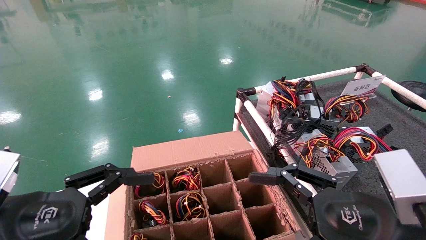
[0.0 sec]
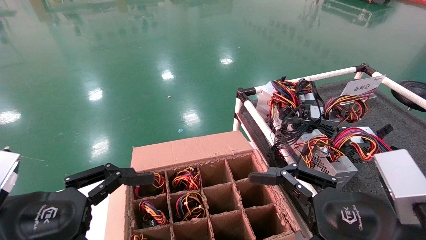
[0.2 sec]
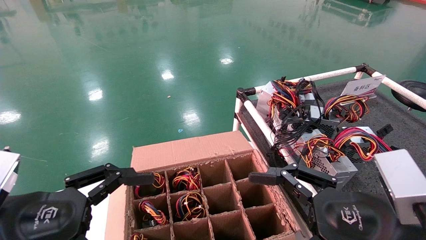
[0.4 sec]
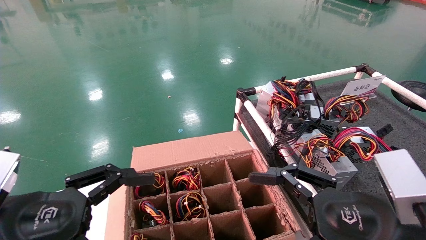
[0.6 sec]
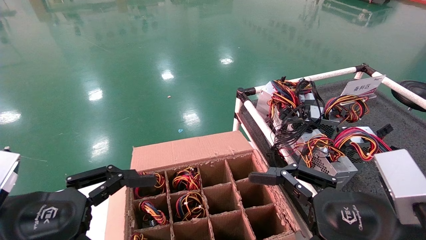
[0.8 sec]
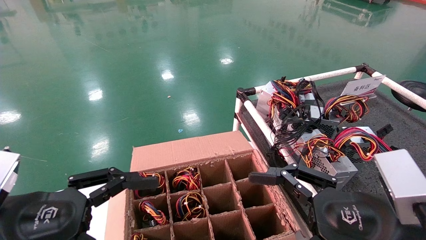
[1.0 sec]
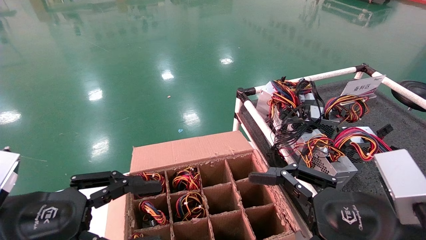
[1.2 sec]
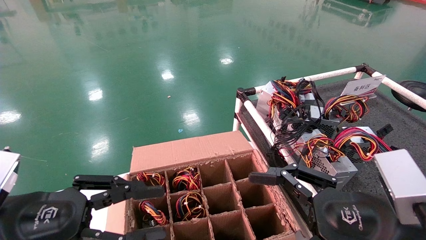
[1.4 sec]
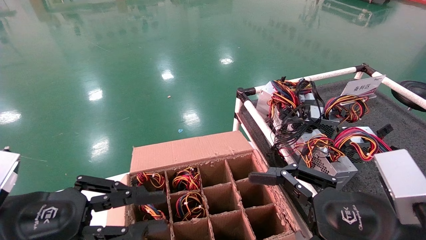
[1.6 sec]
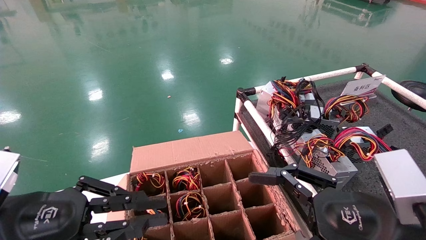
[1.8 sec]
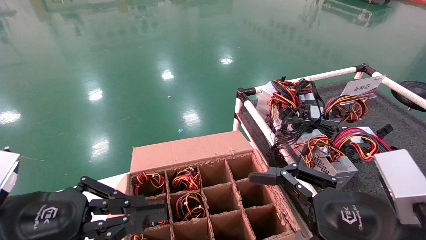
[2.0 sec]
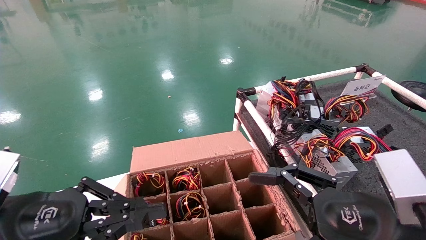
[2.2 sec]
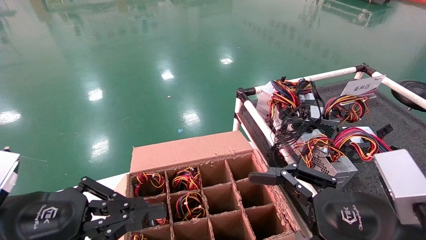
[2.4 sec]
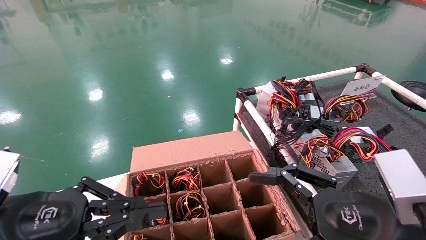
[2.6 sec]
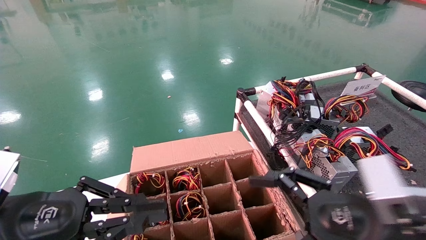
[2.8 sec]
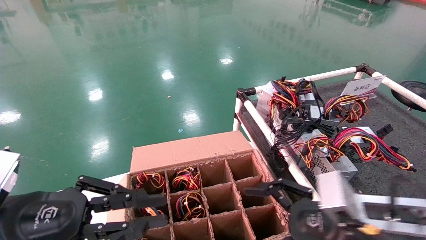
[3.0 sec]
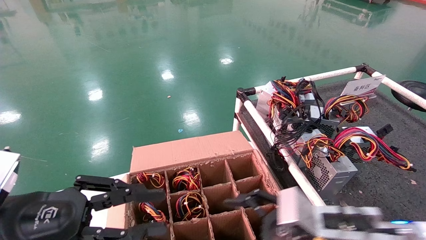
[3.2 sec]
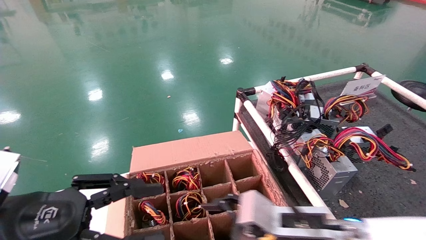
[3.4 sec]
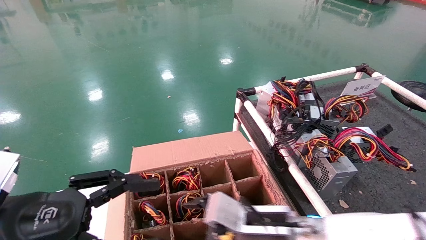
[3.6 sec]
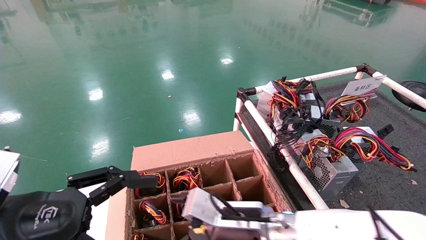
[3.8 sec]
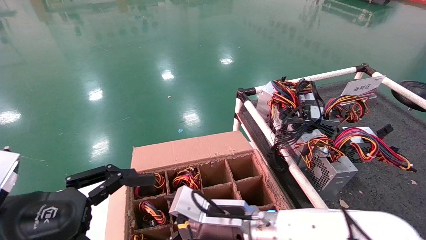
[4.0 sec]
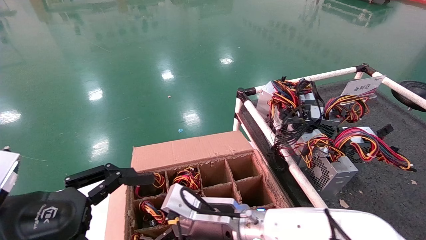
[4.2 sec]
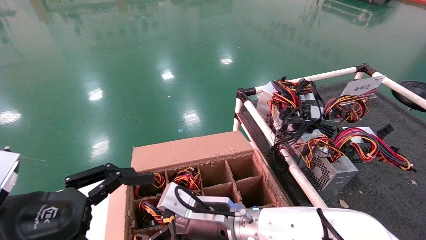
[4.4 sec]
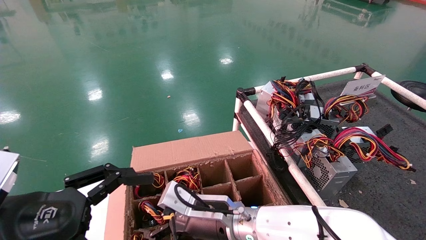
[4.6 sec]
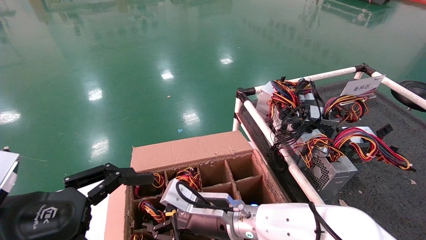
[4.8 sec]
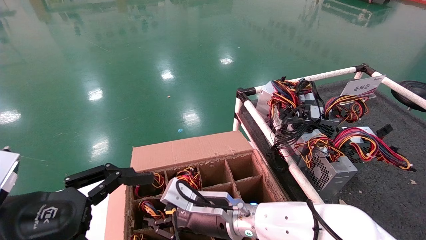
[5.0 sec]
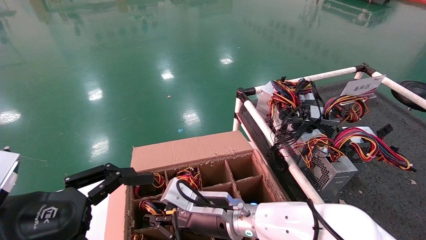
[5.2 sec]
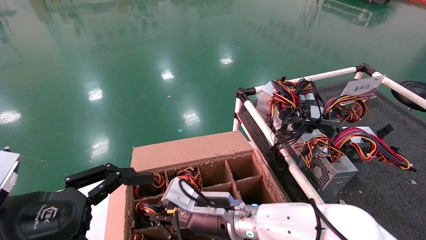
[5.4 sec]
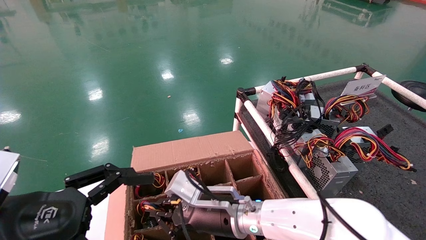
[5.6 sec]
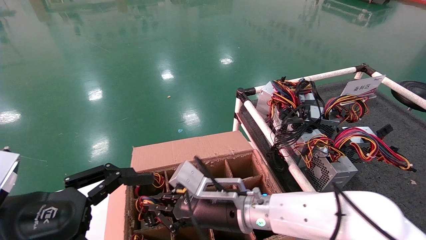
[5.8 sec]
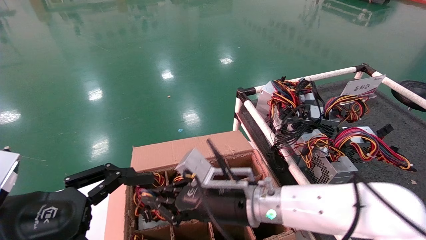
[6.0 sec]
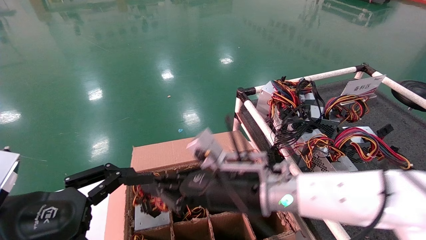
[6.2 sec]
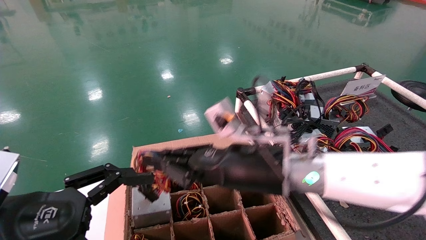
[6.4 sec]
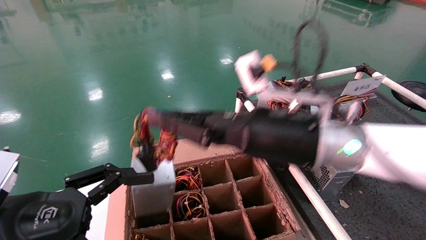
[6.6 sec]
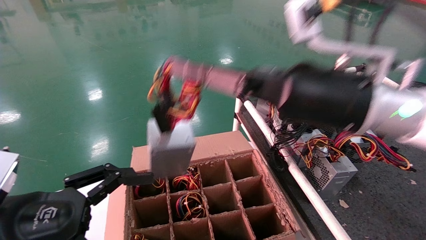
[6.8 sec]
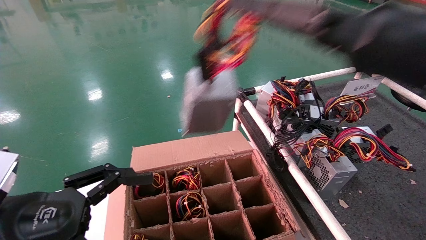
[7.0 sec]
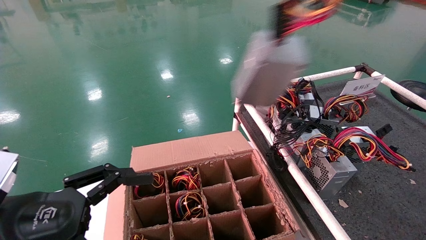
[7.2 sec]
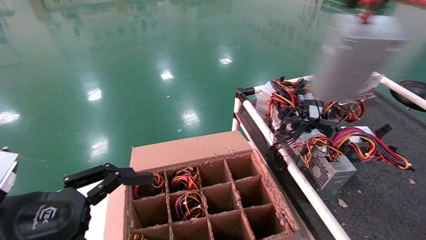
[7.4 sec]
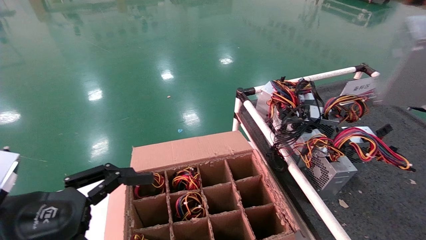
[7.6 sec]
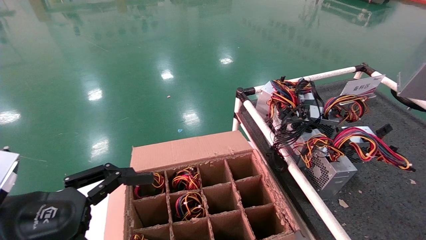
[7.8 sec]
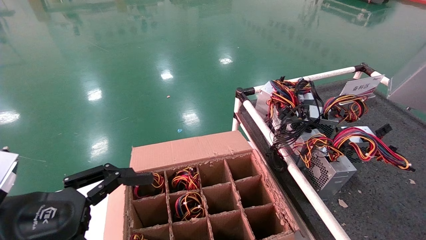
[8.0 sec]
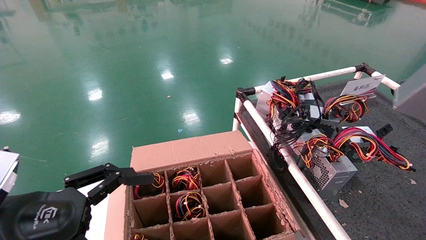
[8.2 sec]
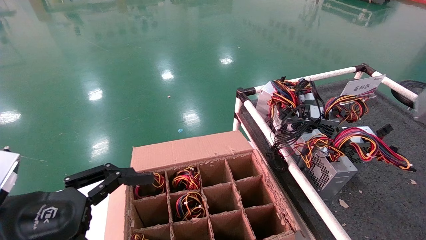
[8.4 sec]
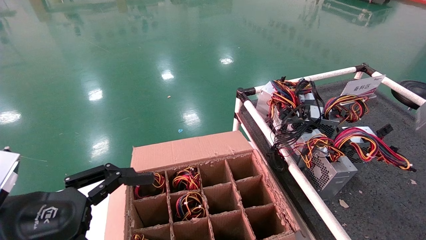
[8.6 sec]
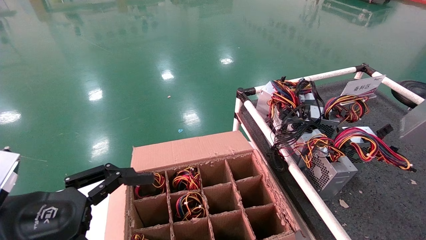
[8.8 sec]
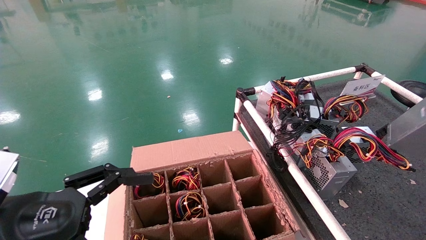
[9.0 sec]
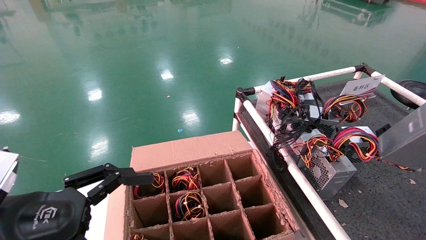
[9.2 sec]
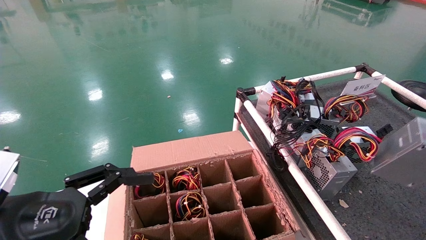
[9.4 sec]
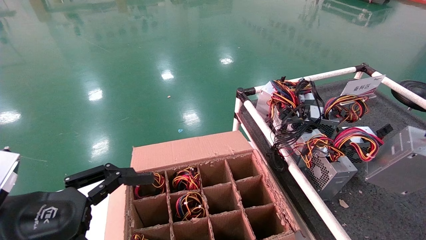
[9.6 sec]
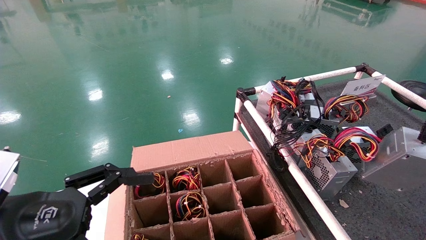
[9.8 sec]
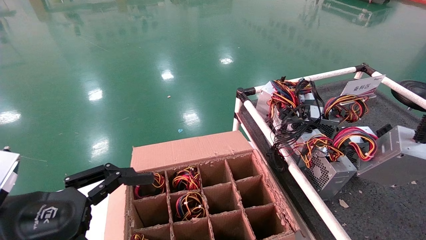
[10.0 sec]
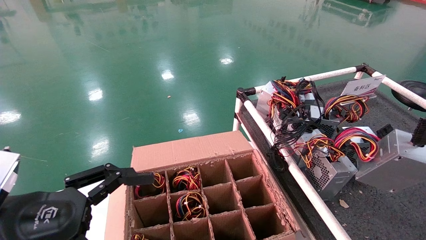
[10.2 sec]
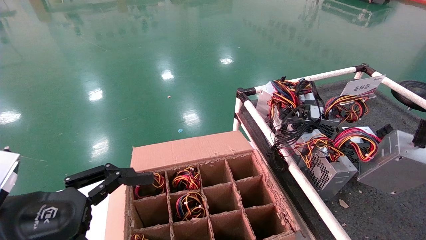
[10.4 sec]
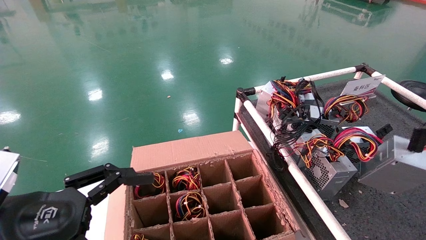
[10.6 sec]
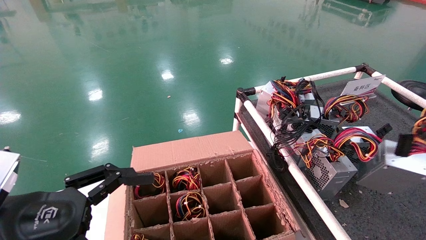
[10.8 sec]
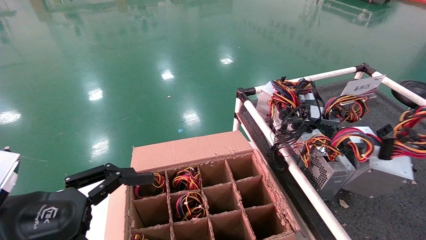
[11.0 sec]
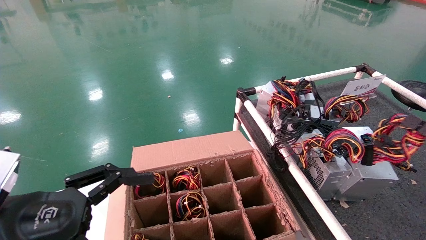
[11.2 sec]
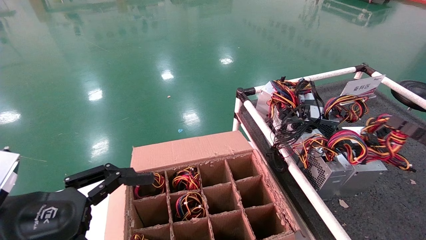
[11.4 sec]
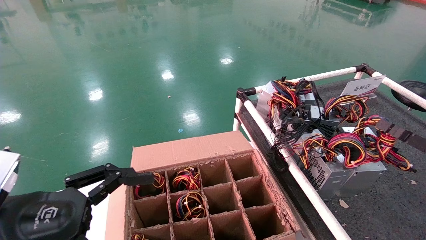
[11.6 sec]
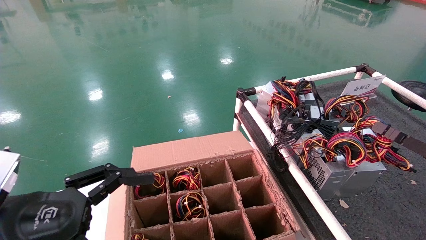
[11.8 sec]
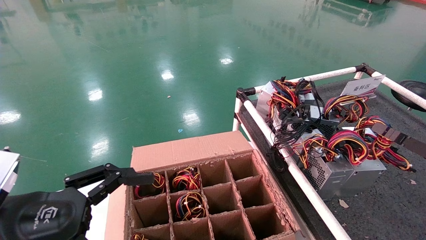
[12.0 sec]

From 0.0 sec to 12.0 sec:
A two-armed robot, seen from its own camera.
Step, from 3.0 sec to 5.4 sec: Grab and lift the power supply from the large box.
From 0.0 sec to 1.6 sec: The left gripper closes its fingers.
From 1.6 sec to 3.0 sec: The right gripper moves roughly 5 cm.
From 3.0 sec to 4.4 sec: The right gripper travels to the left and forward by about 20 cm, while the left gripper opens its fingers.
From 4.4 sec to 6.0 sec: The right gripper travels upward by about 5 cm, and closes up.
From 6.0 sec to 7.6 sec: The right gripper goes roughly 50 cm to the right, upward and backward.
From 7.6 sec to 9.0 sec: The right gripper travels downward and to the right by some 15 cm.
From 9.0 sec to 10.4 sec: The right gripper is displaced downward by some 5 cm.
From 10.4 sec to 12.0 sec: The right gripper is displaced forward by approximately 10 cm.

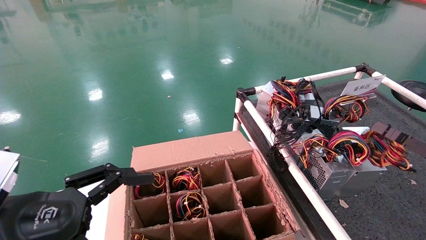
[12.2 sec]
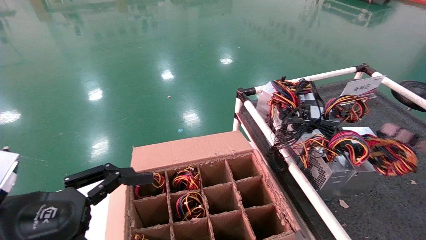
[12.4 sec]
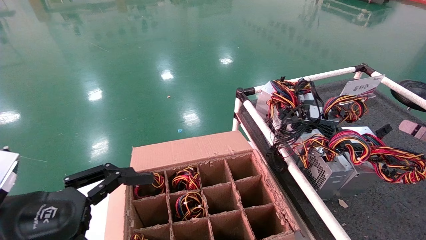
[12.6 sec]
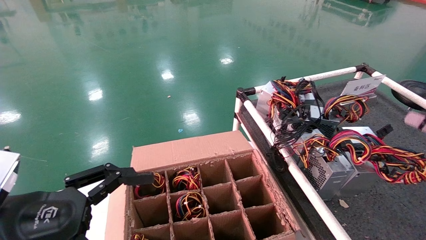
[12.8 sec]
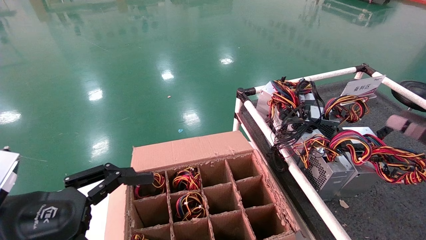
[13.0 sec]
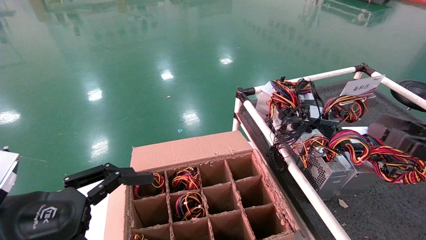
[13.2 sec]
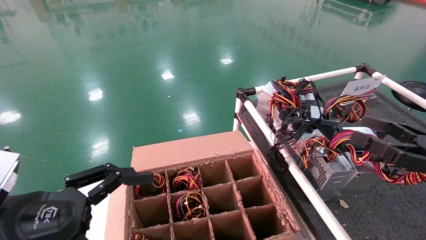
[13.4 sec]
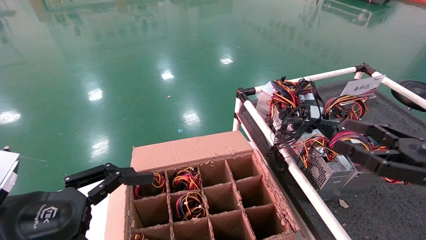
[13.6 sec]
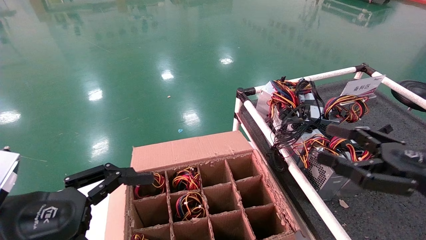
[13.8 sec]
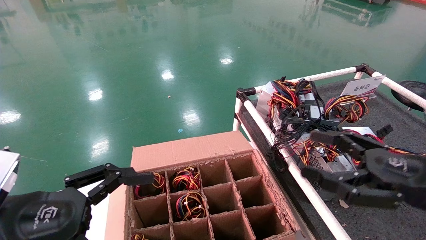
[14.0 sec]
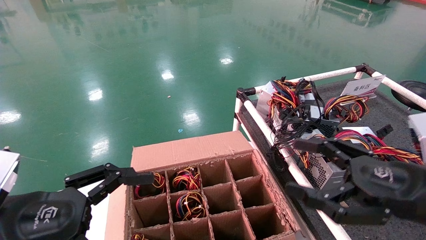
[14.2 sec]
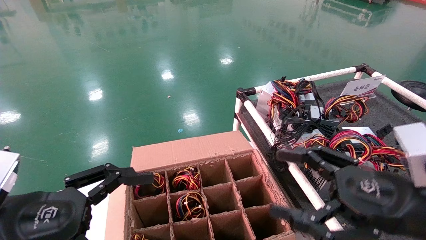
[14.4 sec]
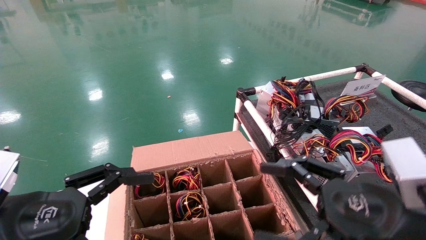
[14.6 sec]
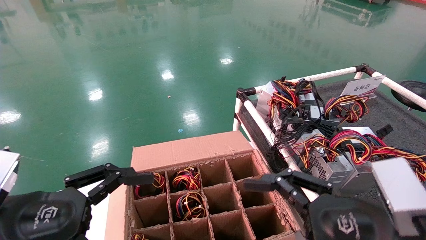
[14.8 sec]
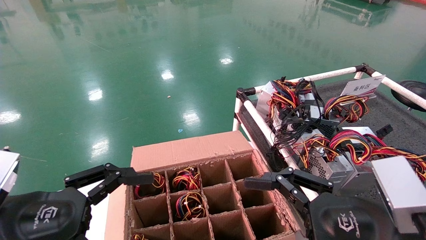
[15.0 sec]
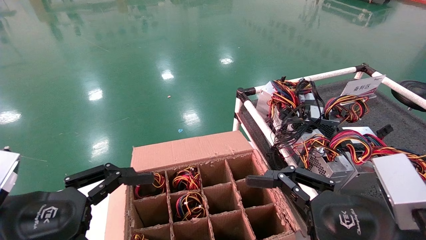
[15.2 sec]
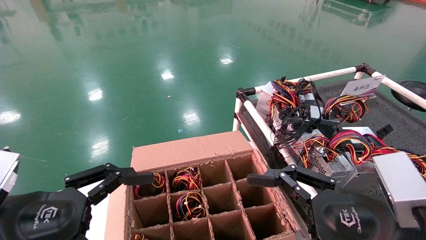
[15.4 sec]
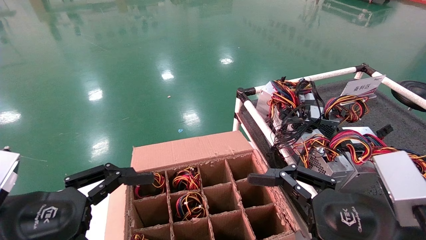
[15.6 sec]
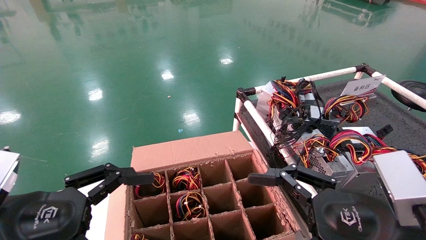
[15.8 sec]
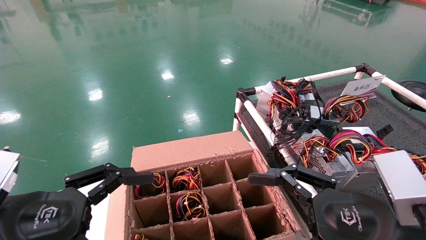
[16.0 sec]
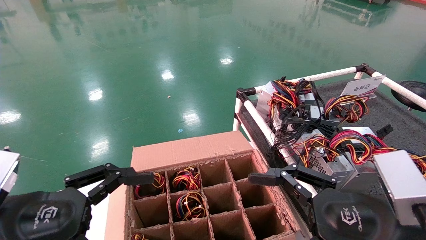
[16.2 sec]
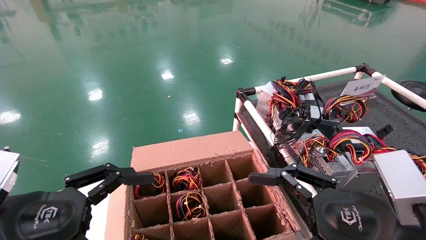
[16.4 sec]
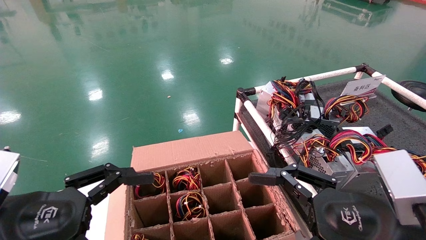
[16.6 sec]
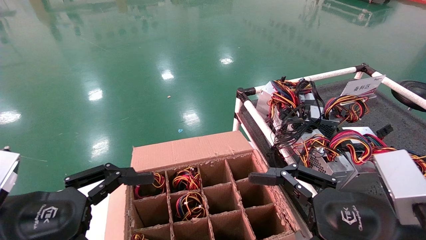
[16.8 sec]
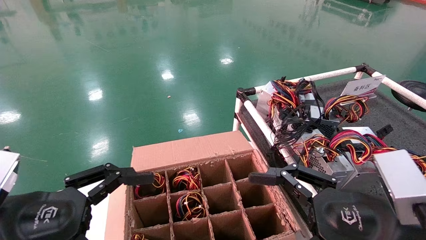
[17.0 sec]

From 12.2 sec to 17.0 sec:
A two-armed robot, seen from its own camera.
From 12.2 sec to 13.8 sec: The right gripper goes approximately 10 cm to the left, and opens up.
From 13.8 sec to 15.4 sec: The right gripper shifts some 10 cm to the left.
From 15.4 sec to 17.0 sec: Neither gripper changes place.
